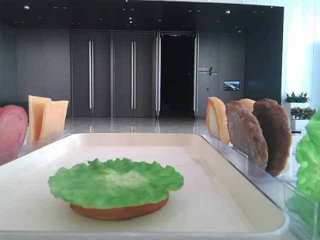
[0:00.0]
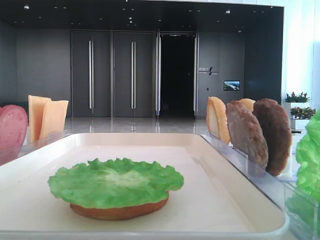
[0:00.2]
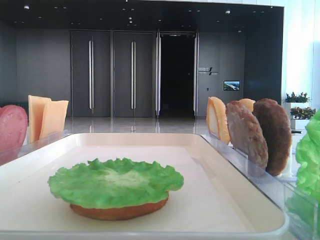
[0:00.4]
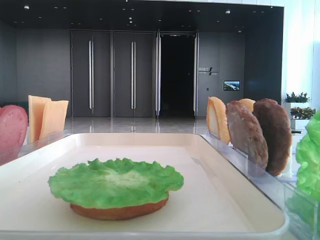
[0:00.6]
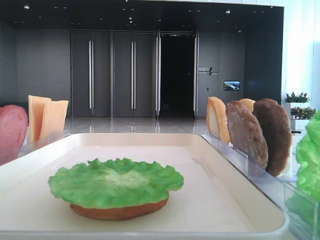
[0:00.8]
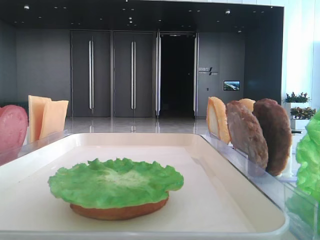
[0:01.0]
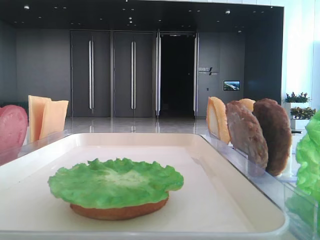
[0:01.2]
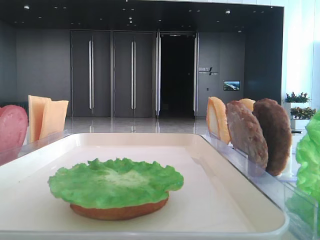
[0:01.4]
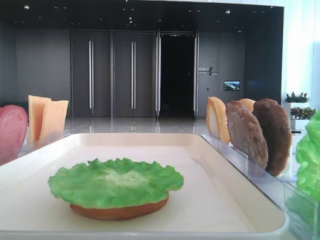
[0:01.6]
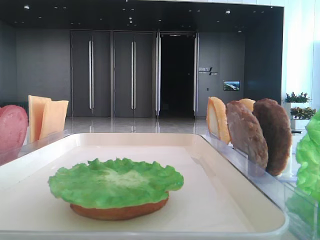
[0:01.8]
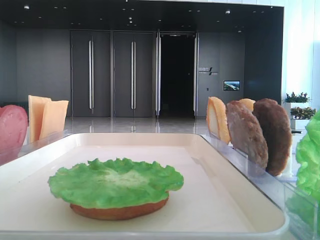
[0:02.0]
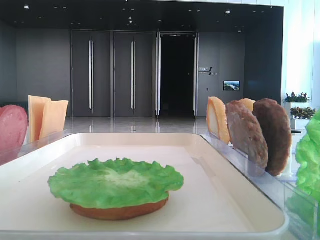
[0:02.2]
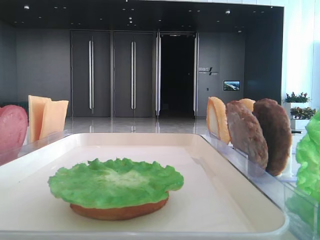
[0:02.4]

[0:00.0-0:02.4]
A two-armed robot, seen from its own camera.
0:01.2 to 0:02.4: The two grippers keep their place.

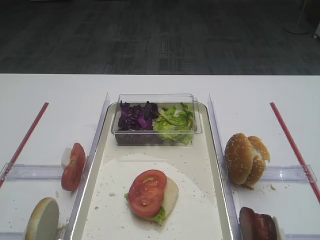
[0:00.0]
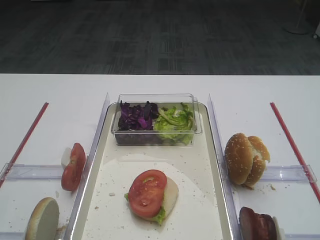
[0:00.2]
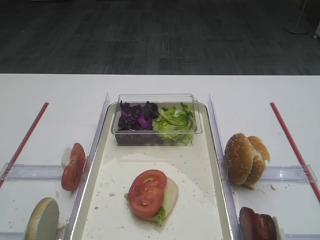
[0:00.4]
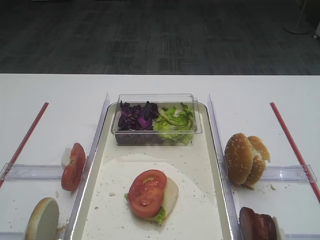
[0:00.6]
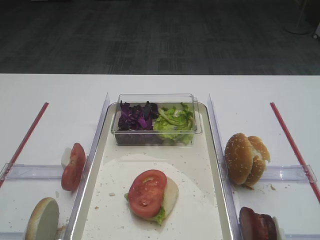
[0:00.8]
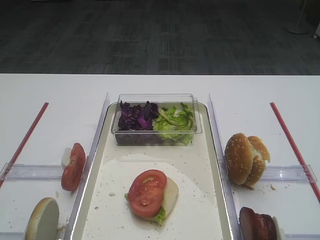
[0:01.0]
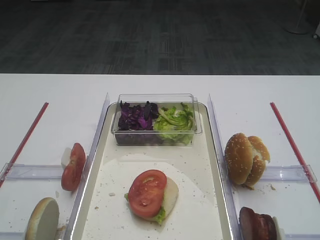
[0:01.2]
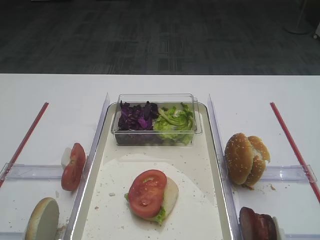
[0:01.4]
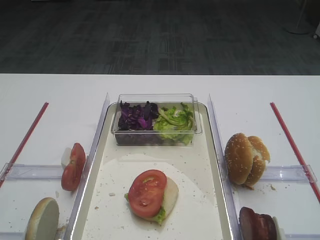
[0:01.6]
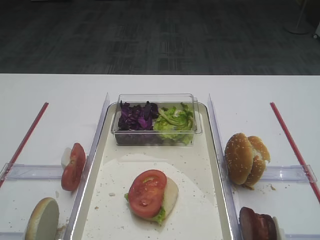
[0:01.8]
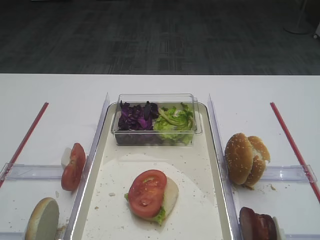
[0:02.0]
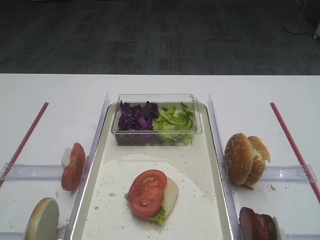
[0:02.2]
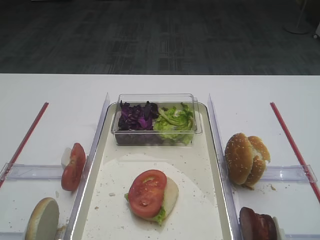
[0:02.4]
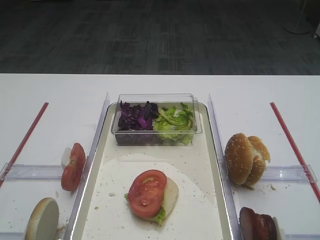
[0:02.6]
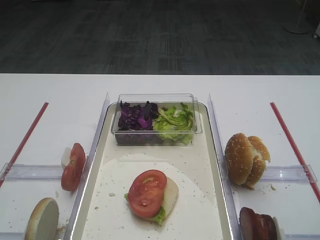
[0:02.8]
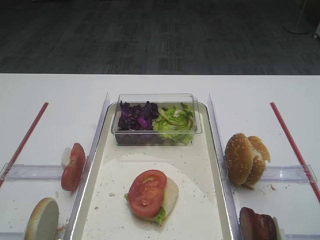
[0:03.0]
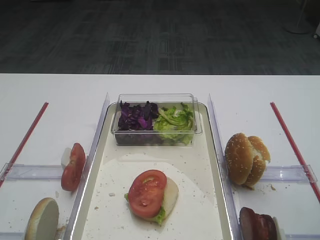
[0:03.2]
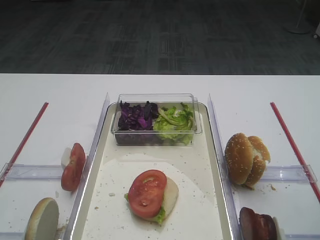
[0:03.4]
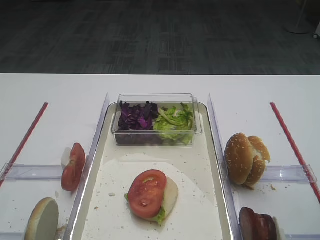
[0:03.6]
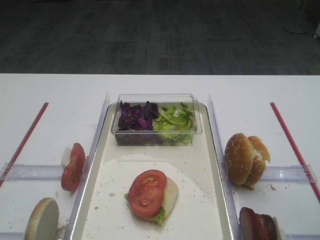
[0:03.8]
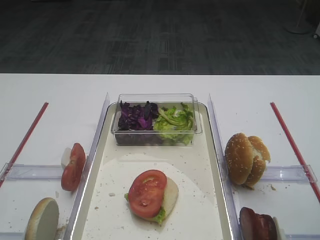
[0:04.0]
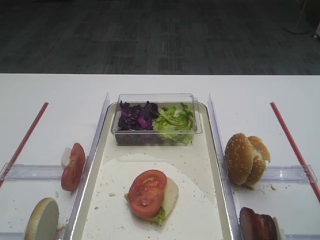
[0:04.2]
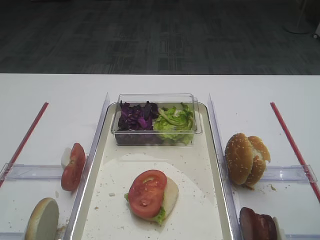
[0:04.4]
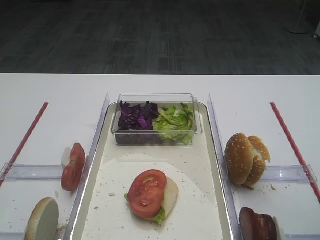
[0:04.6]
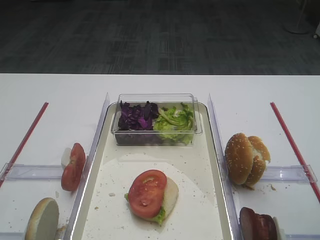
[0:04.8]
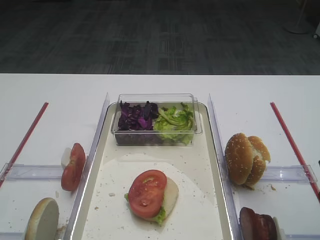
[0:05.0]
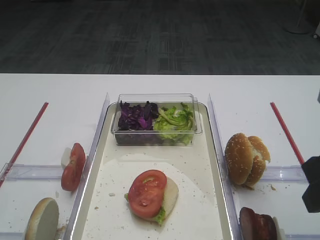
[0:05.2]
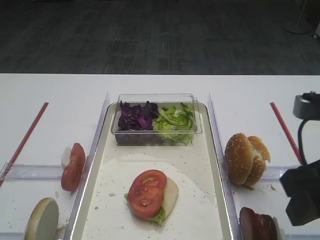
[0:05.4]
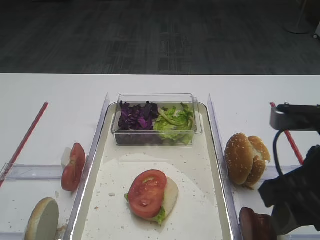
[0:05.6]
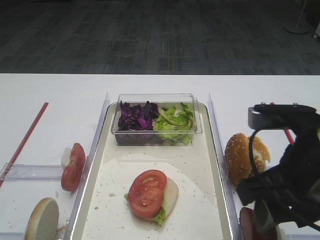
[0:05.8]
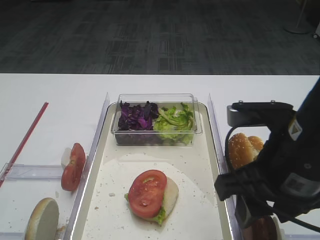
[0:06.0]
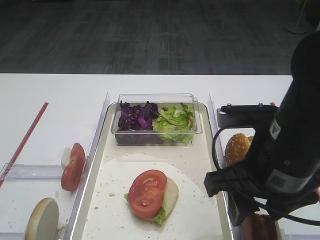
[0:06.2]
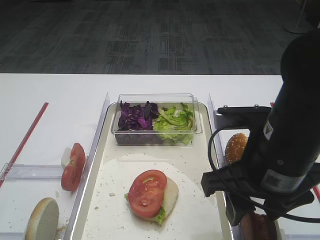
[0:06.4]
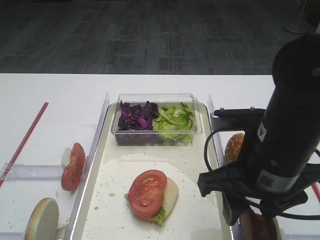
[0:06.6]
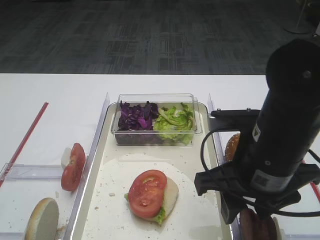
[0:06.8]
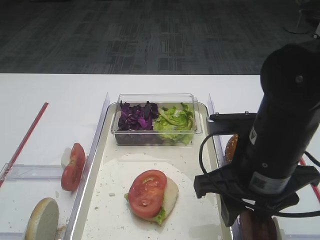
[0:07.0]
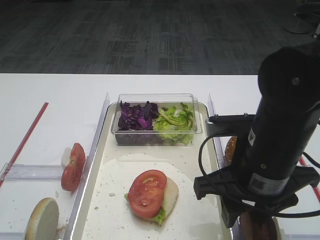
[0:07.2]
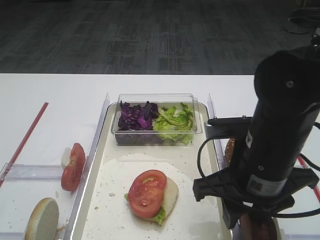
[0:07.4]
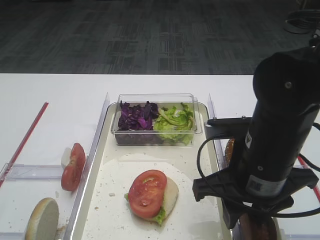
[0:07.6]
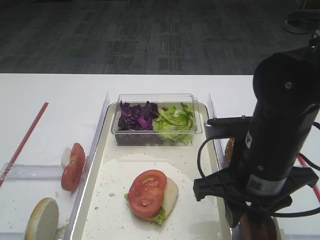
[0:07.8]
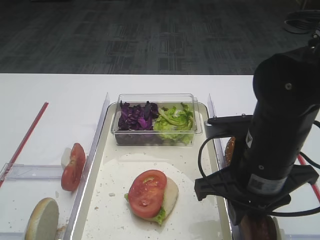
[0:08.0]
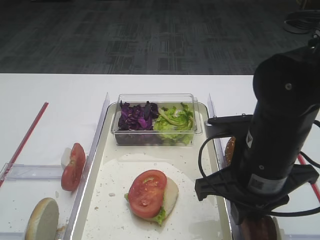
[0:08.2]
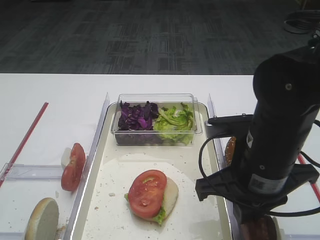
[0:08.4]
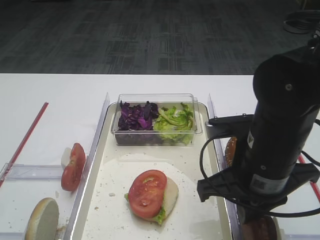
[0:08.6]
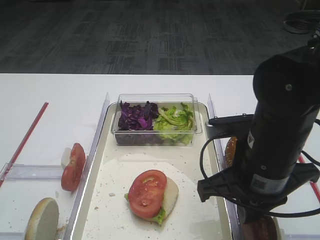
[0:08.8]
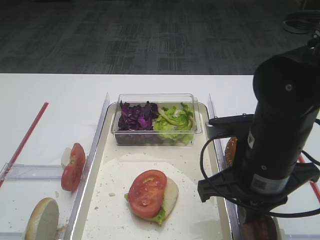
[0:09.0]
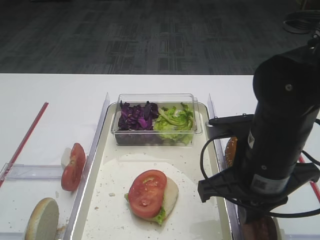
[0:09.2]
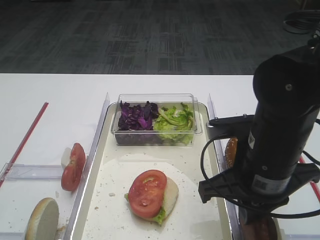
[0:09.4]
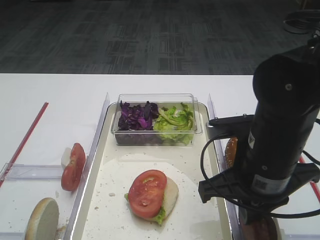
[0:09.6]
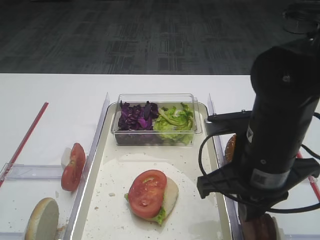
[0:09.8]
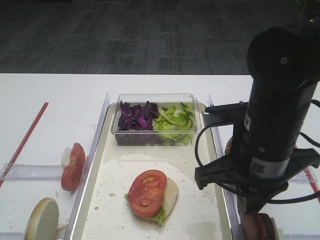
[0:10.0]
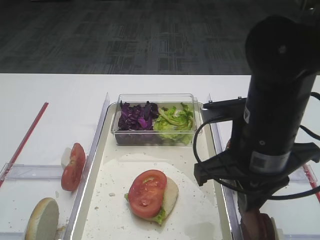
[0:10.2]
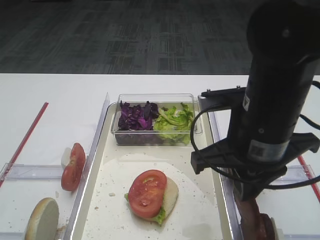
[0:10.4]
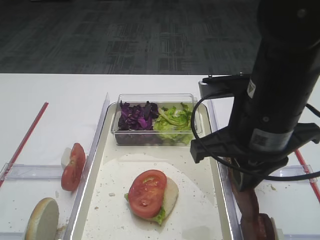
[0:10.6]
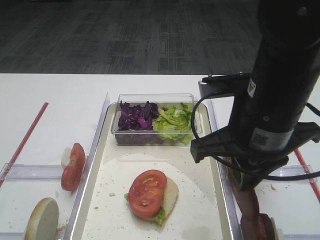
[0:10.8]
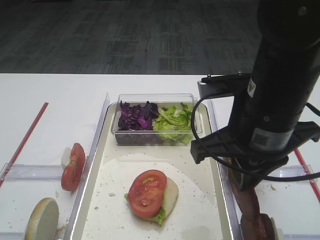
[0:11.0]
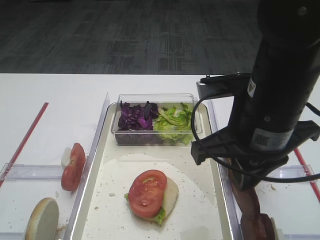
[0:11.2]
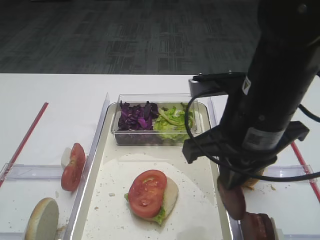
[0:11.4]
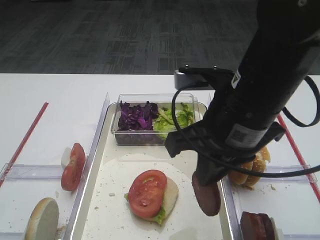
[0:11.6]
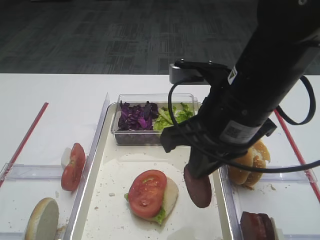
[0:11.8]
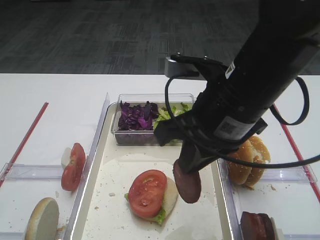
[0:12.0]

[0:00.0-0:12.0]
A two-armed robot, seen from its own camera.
Step, 0:00.0 to 0:10.8: Pick up the cutlet with the right gripper.
0:04.4 to 0:06.0: The right gripper goes roughly 10 cm to the left.
0:06.0 to 0:07.6: The right gripper shifts by approximately 5 cm.
0:07.6 to 0:09.0: The right gripper closes its fingers.
0:09.0 to 0:10.4: The grippers move only a little.

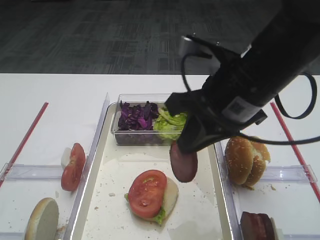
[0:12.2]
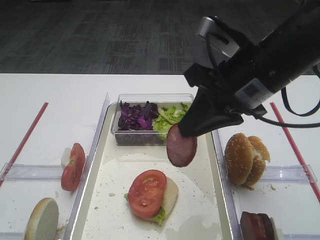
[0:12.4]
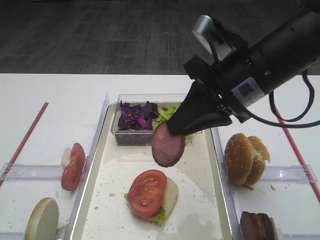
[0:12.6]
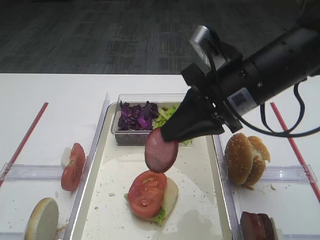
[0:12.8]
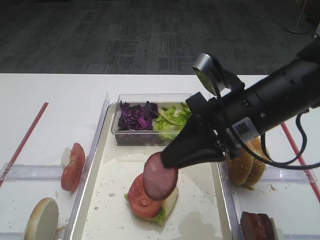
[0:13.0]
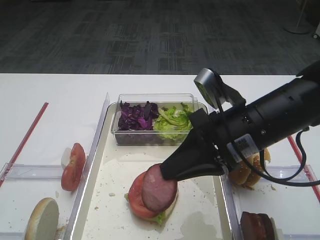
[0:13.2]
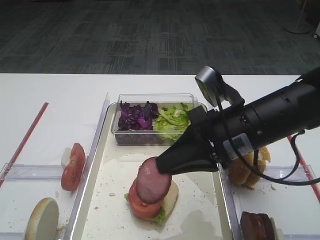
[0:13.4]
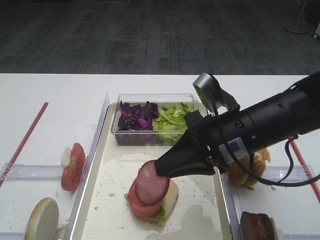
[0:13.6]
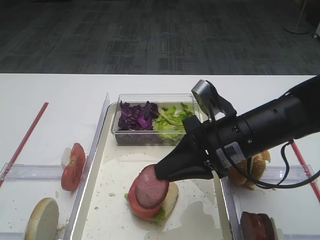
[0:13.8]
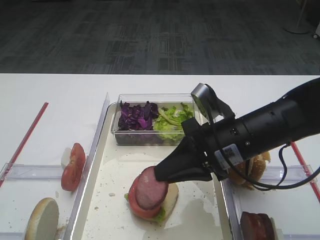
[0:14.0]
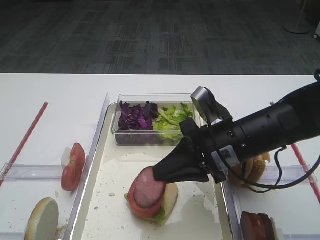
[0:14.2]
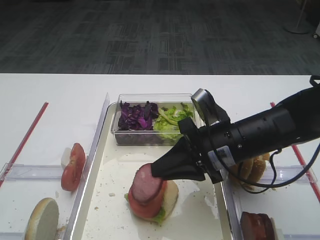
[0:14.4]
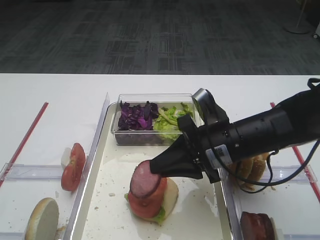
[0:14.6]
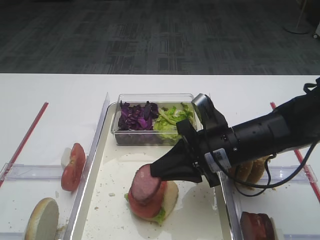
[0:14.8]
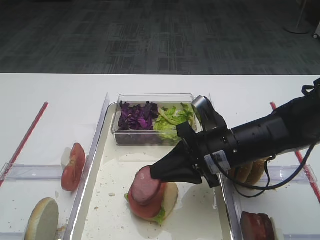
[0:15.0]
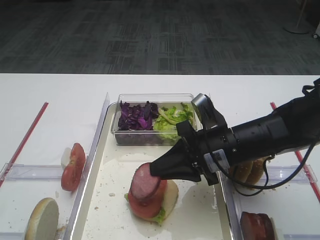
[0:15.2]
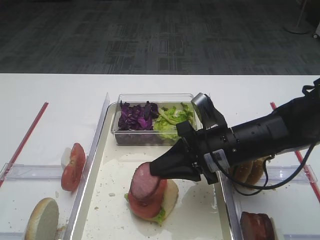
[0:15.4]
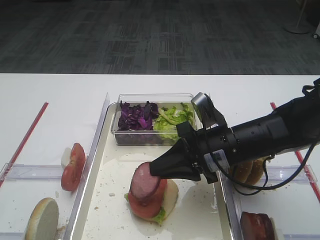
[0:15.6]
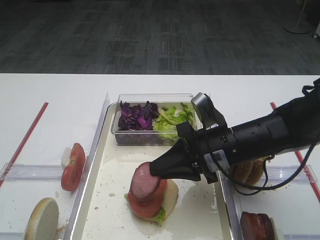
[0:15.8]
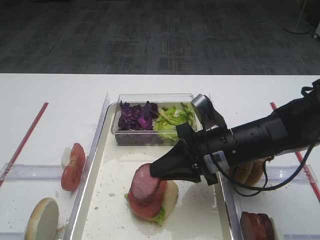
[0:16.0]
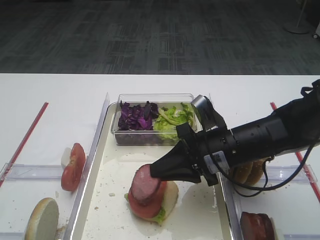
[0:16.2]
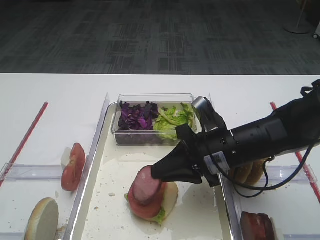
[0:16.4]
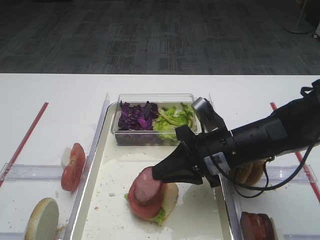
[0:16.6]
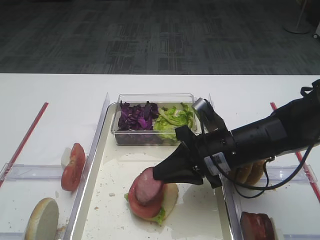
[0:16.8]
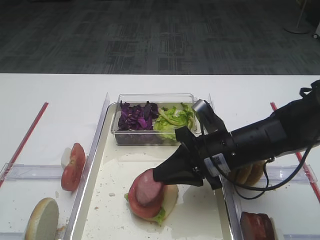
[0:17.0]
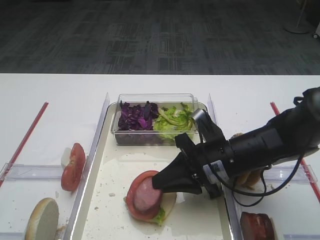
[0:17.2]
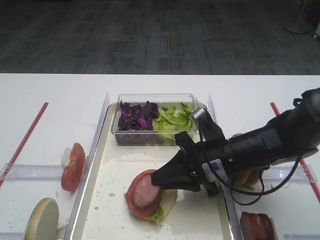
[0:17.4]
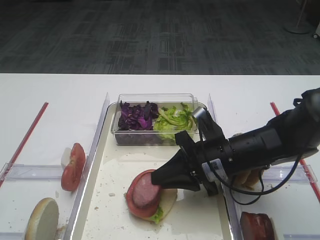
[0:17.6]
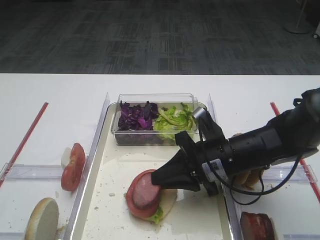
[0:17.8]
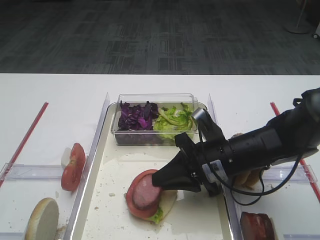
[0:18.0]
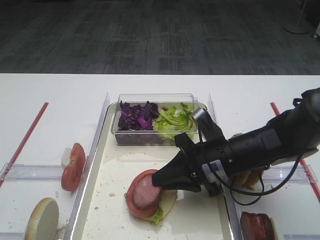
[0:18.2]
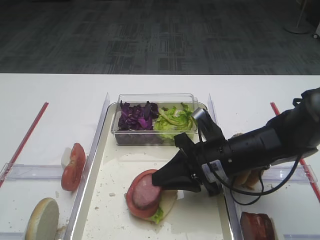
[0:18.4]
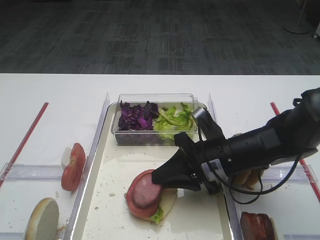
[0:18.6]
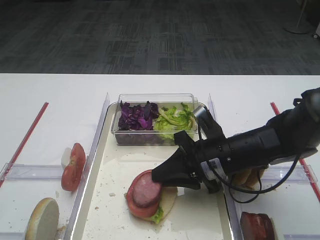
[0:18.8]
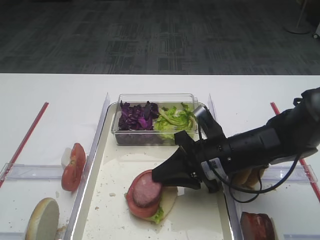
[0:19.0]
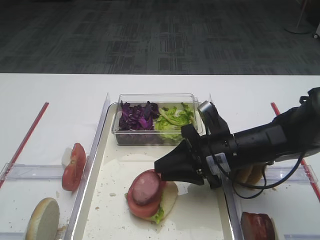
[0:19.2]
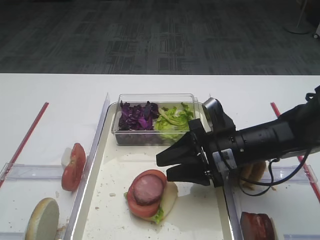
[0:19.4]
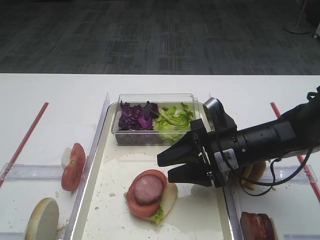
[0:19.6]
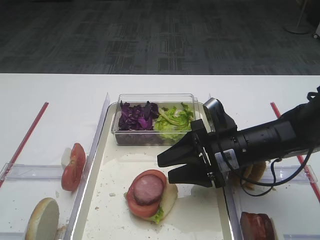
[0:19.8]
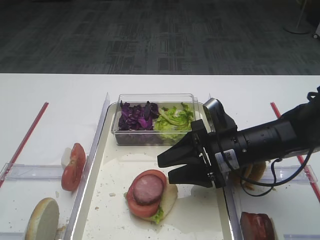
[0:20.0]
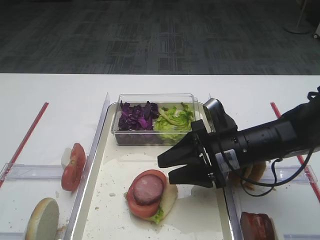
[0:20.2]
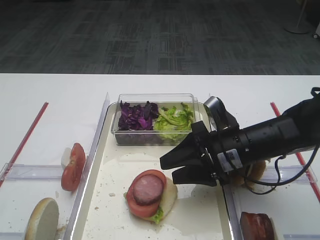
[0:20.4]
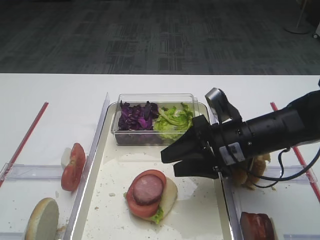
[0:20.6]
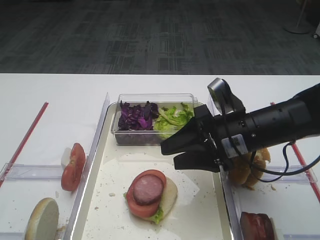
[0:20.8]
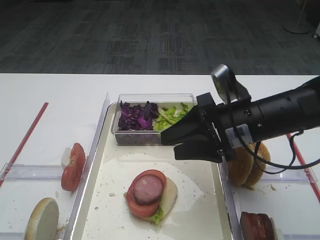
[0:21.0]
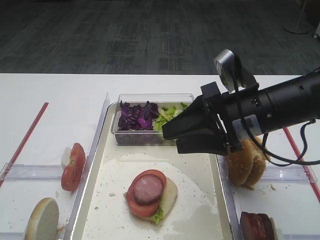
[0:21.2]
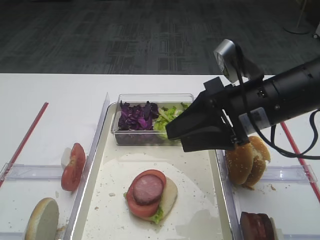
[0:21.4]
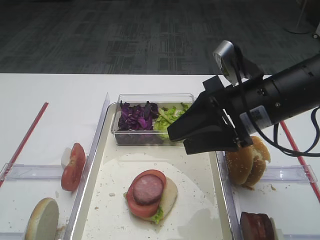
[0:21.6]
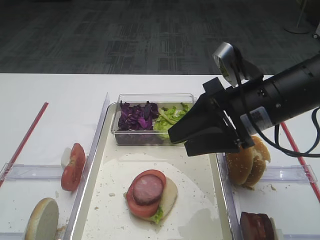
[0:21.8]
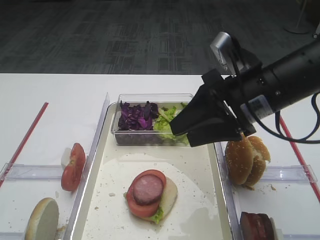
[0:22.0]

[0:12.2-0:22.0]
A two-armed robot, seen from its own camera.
Step, 0:12.2 to 0:20.4: Place the cutlet on the tomato slice with the right gripper.
0:12.2 to 0:13.6: The right gripper shifts about 10 cm downward.
0:13.6 to 0:15.0: The right gripper moves downward, some 5 cm.
0:15.0 to 0:16.4: The two grippers keep their place.
0:16.4 to 0:17.8: The grippers stay close to where they were, moving slightly.
0:17.8 to 0:19.2: Both grippers stay about where they are.
0:19.2 to 0:20.6: The right gripper opens its fingers.
0:20.6 to 0:22.0: The right gripper travels upward by about 10 cm.
